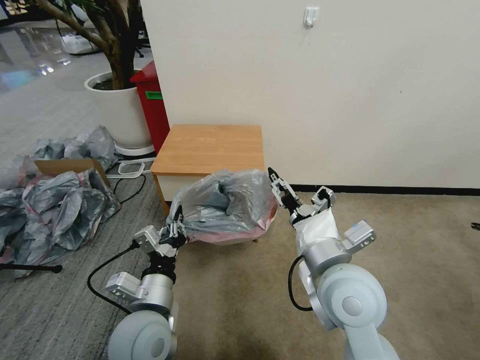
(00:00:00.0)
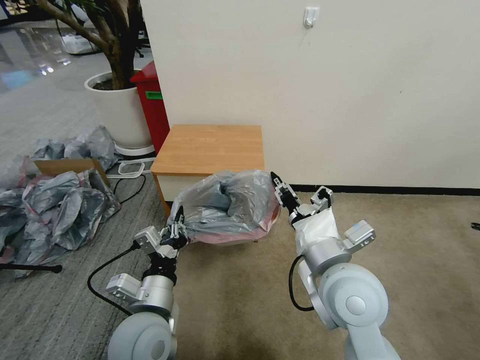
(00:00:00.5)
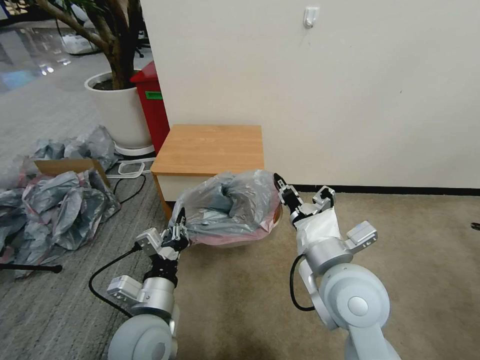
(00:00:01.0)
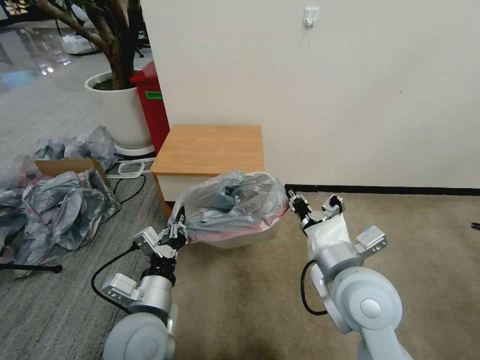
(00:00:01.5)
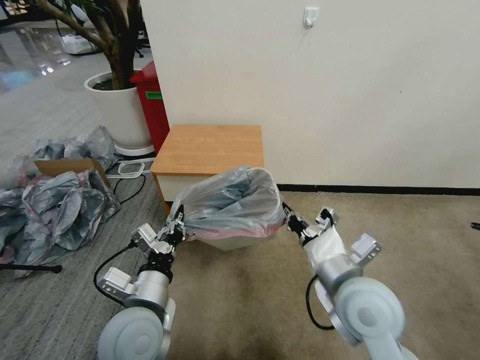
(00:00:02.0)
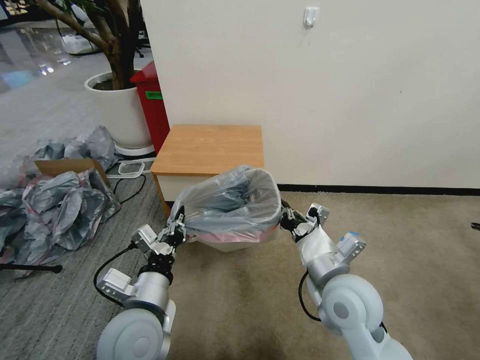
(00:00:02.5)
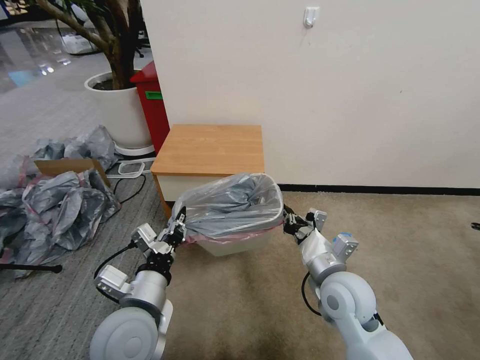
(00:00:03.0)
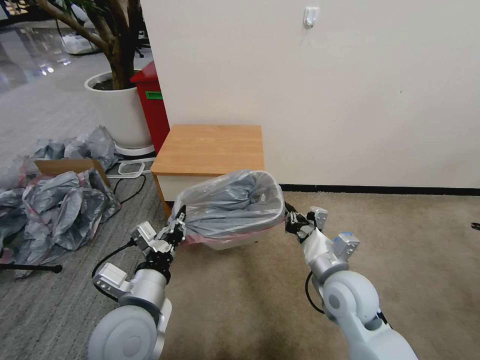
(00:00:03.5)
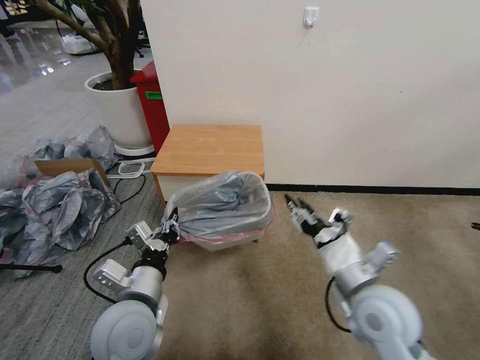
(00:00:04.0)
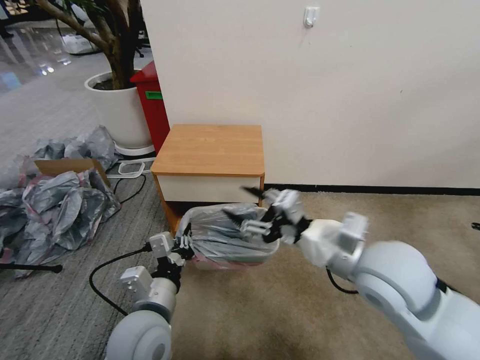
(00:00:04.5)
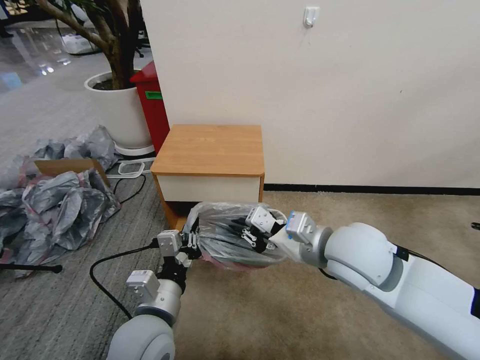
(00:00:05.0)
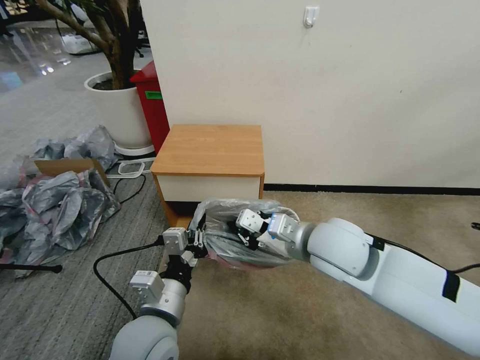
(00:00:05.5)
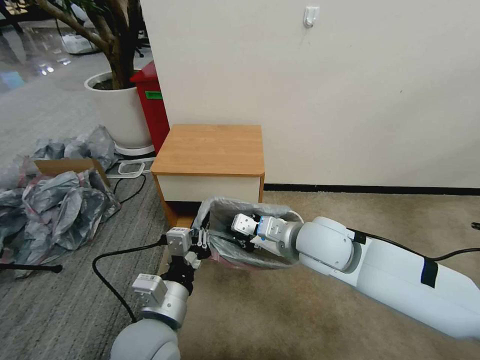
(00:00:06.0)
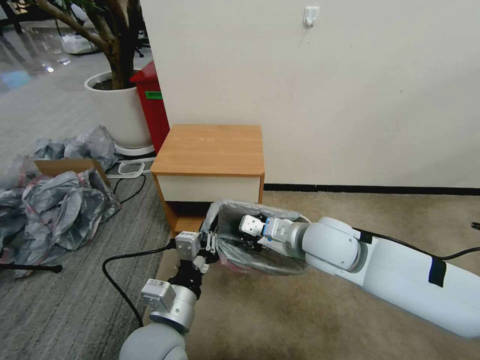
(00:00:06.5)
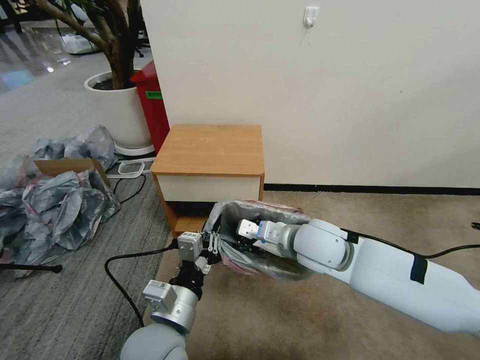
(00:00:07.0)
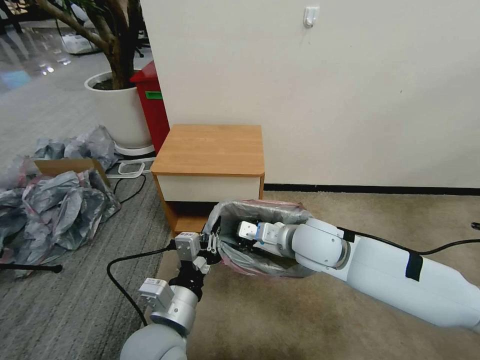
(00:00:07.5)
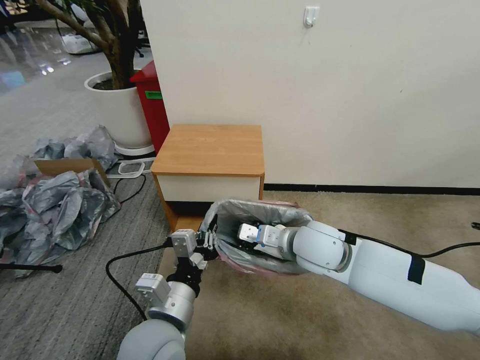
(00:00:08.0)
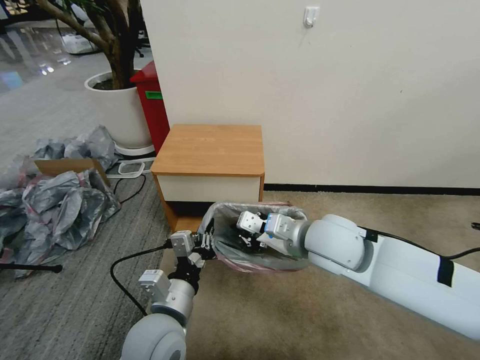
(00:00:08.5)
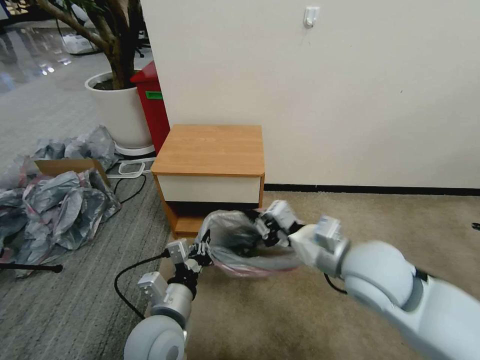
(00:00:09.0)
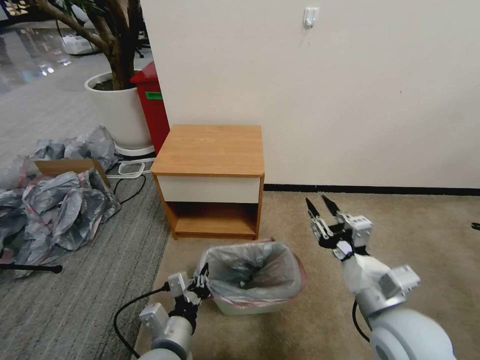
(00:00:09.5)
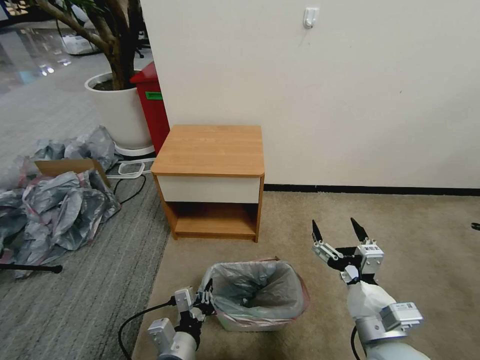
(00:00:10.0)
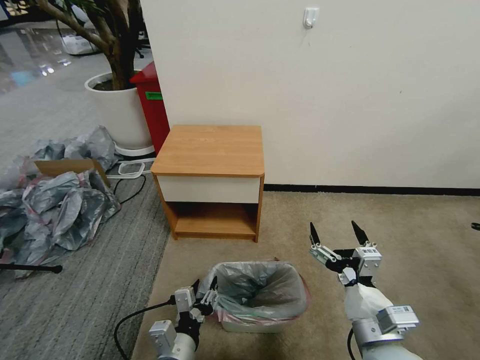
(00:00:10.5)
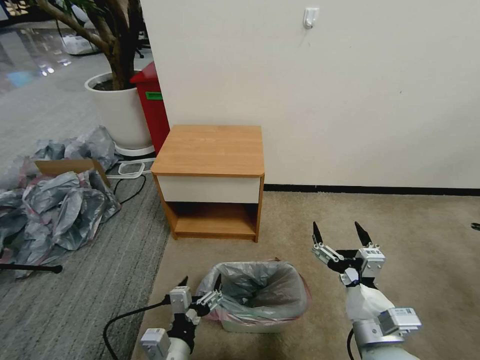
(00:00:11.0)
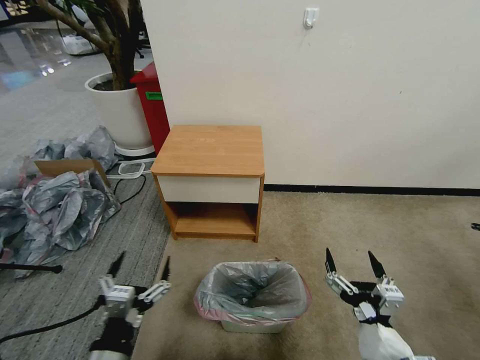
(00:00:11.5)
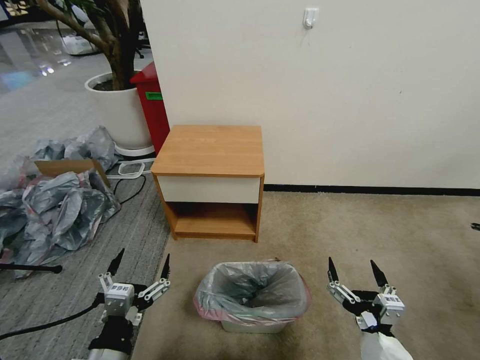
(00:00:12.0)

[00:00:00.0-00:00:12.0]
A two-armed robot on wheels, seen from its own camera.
Task of the whole recording: Pick up the garbage bag from the table and place it over the trash can.
00:00:00.0 to 00:00:02.0: The right gripper closes up.
00:00:02.0 to 00:00:04.0: The right gripper opens its fingers.
00:00:04.0 to 00:00:06.0: The right gripper shifts approximately 15 cm forward, to the left and upward, and closes up; the left gripper changes place by roughly 5 cm.
00:00:06.0 to 00:00:08.0: The grippers make only small movements.
00:00:08.0 to 00:00:10.0: The right gripper heads backward and to the right, covering approximately 20 cm, and opens, while the left gripper is displaced downward by some 10 cm.
00:00:10.0 to 00:00:12.0: The left gripper heads to the left and upward, covering approximately 10 cm, and opens up; the right gripper heads backward and downward, covering roughly 10 cm.
